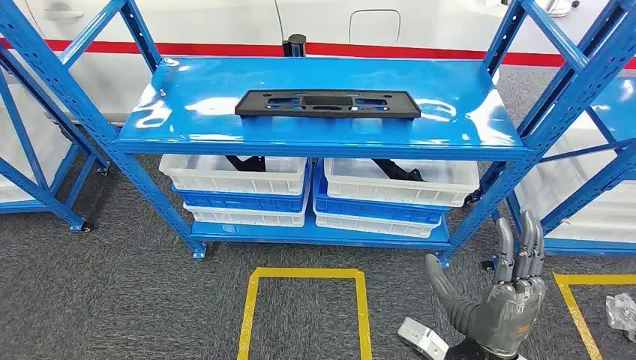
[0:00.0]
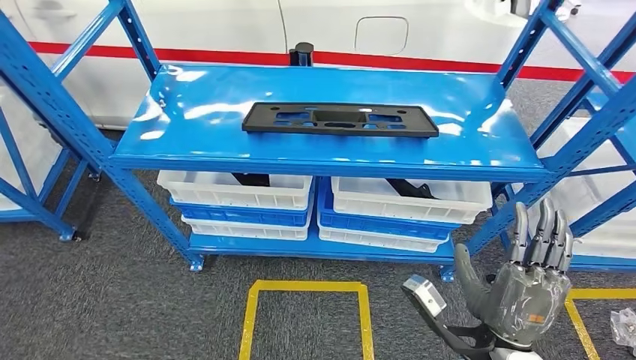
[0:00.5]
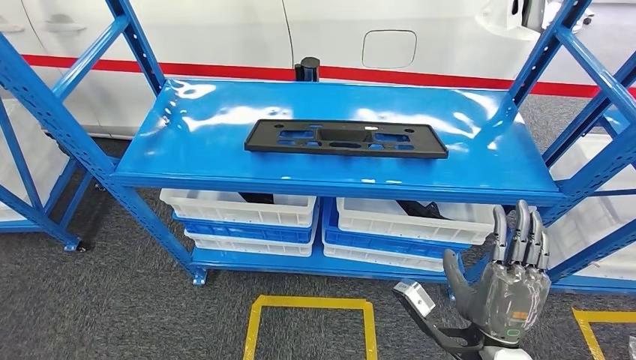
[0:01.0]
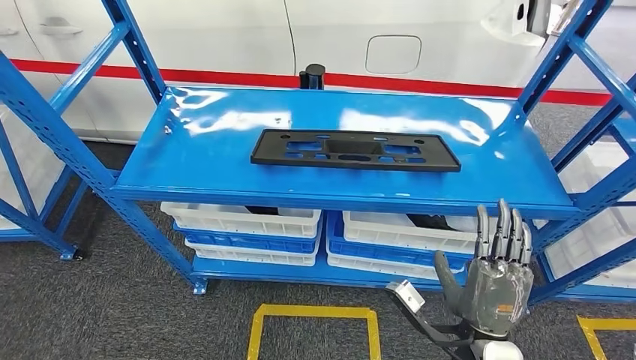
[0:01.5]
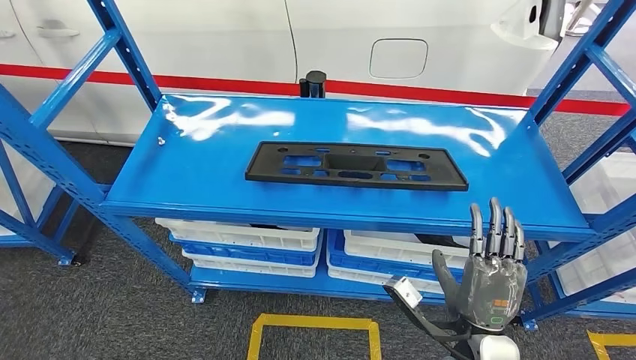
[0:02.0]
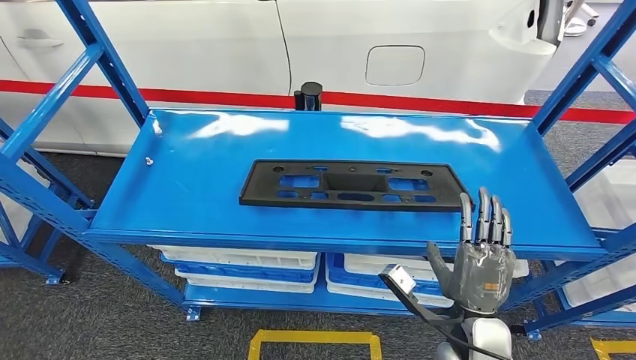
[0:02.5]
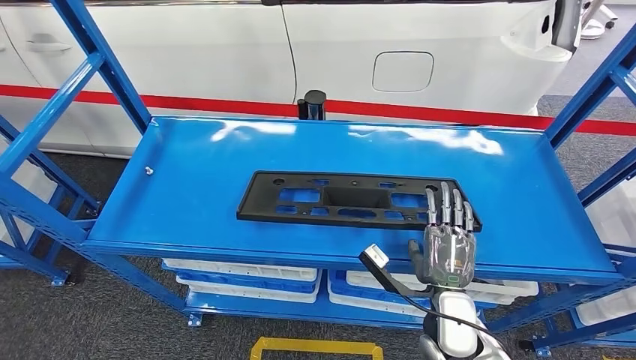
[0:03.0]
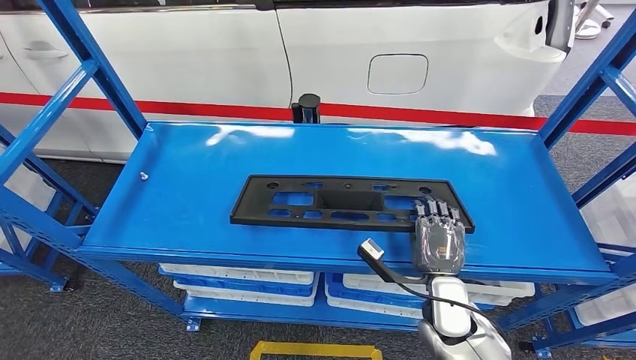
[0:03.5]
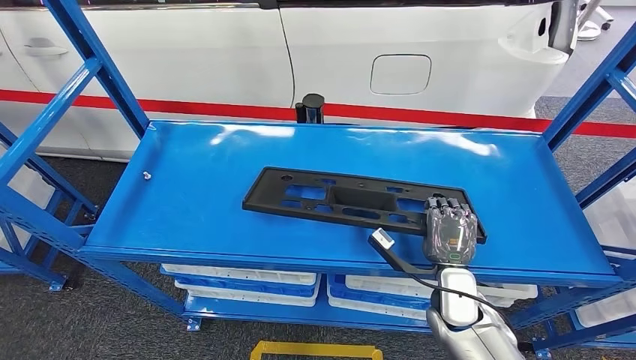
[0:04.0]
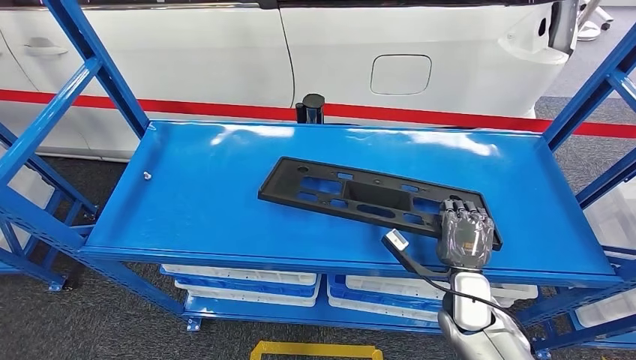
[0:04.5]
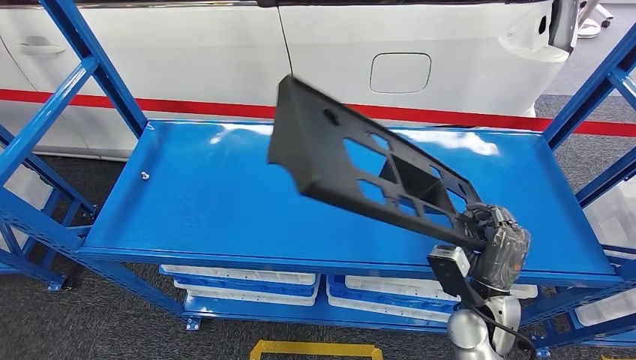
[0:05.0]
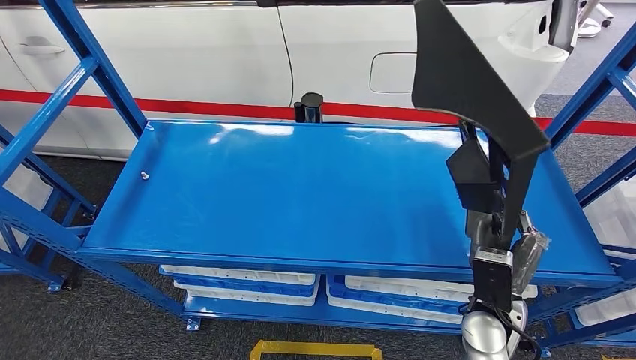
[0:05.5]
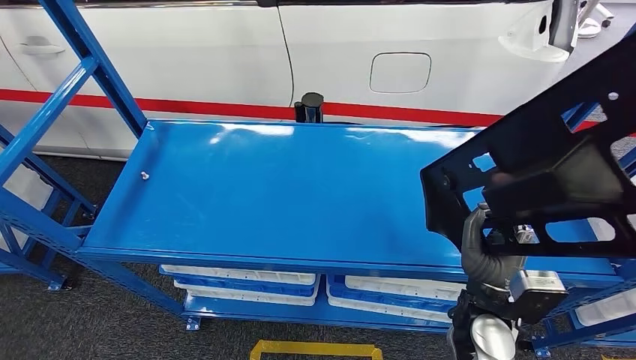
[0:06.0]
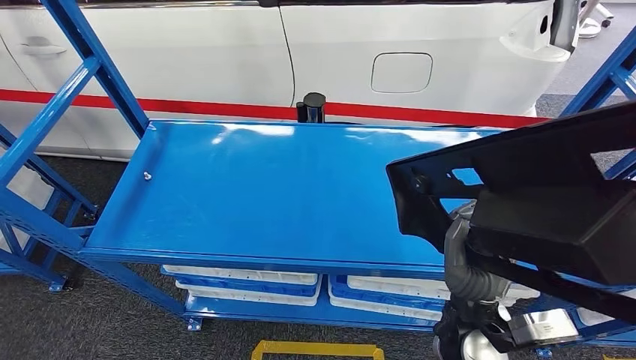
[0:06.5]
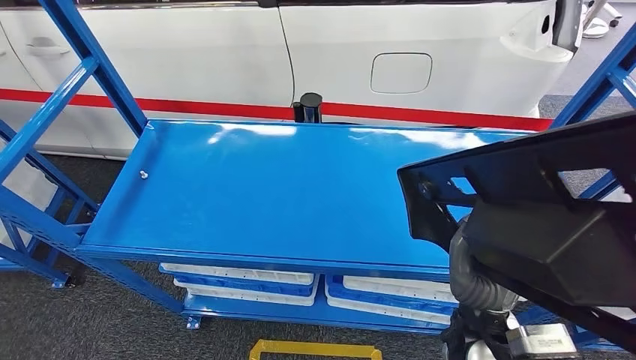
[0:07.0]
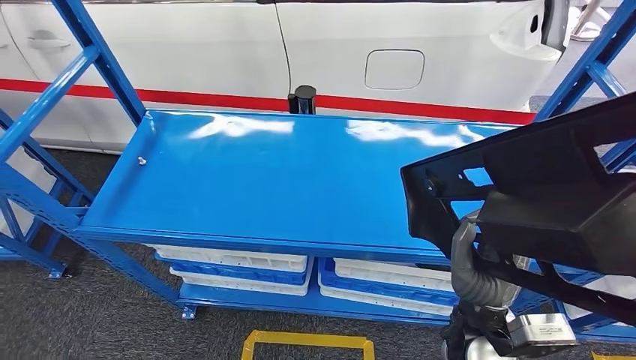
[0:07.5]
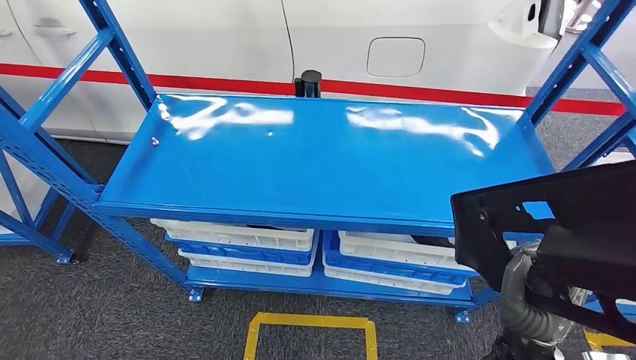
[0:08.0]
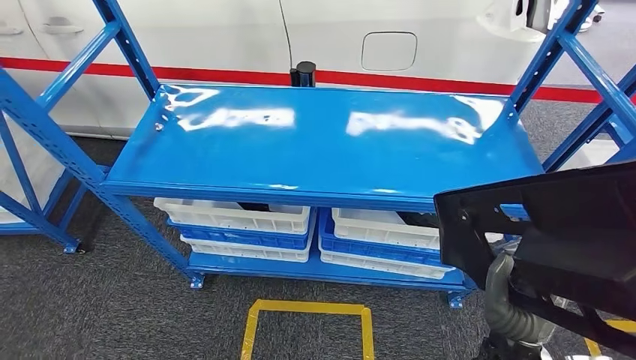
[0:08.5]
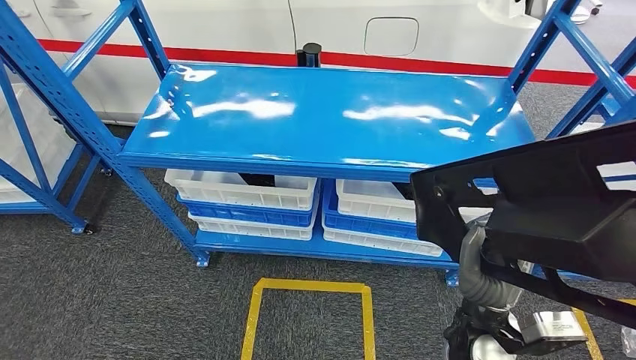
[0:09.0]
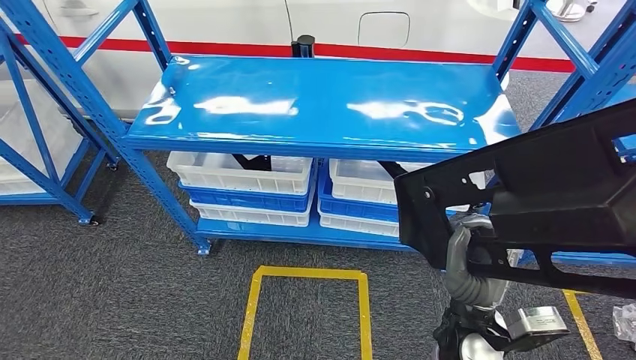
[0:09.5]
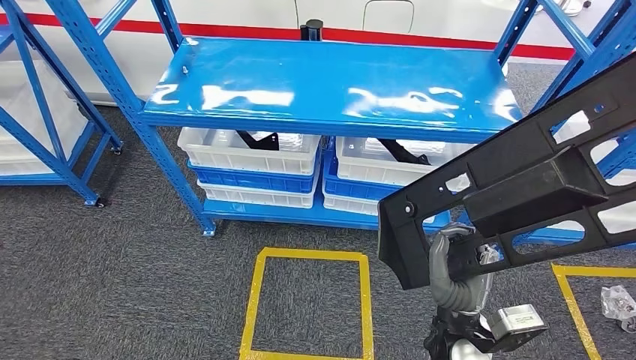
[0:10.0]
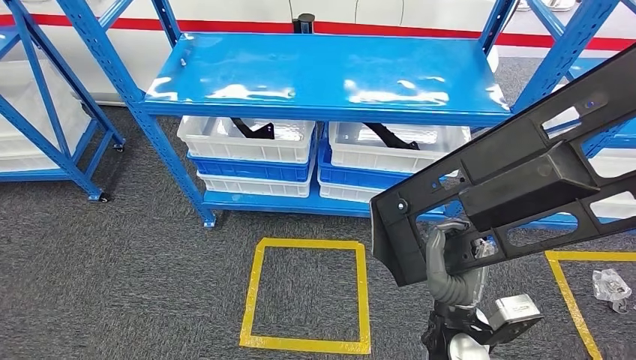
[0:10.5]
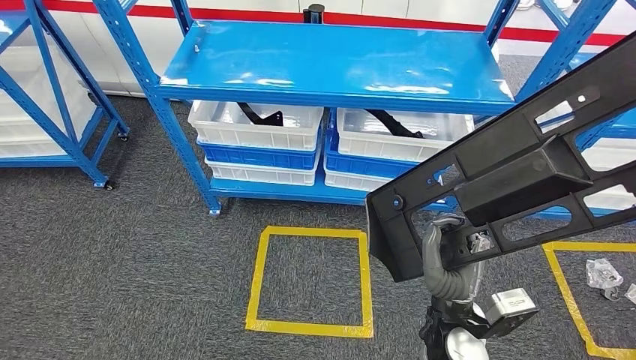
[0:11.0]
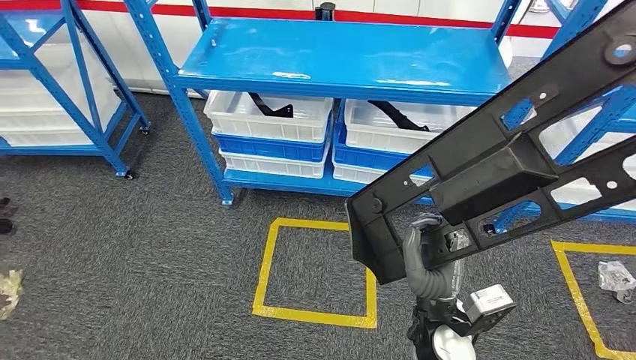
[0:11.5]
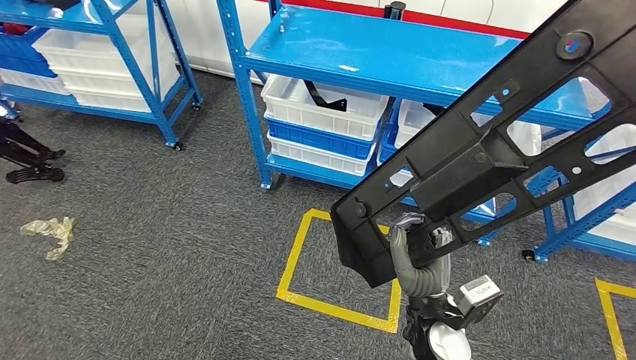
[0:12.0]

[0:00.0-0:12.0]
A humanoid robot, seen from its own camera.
Step, 0:00.0 to 0:09.0: Pick up the large material from the shelf.

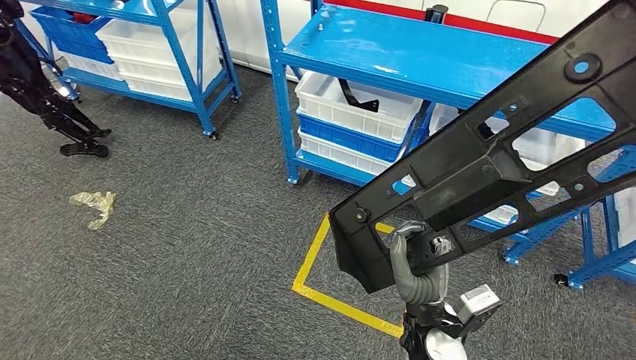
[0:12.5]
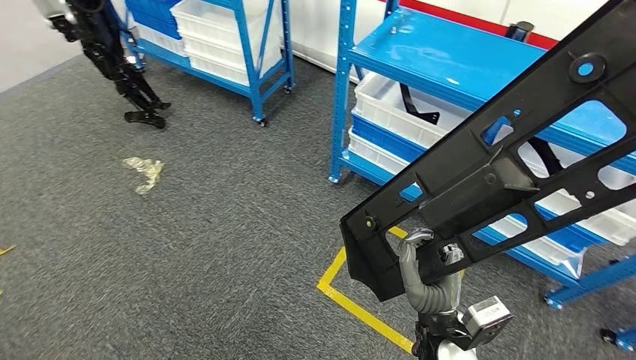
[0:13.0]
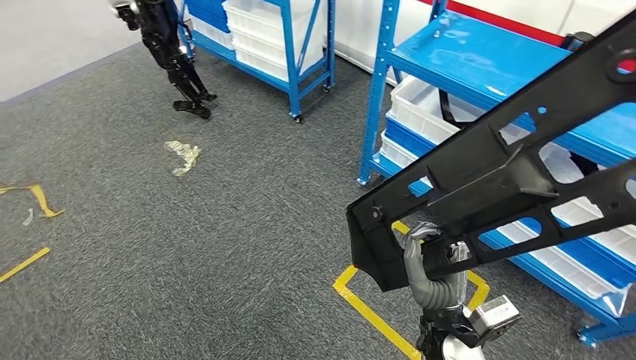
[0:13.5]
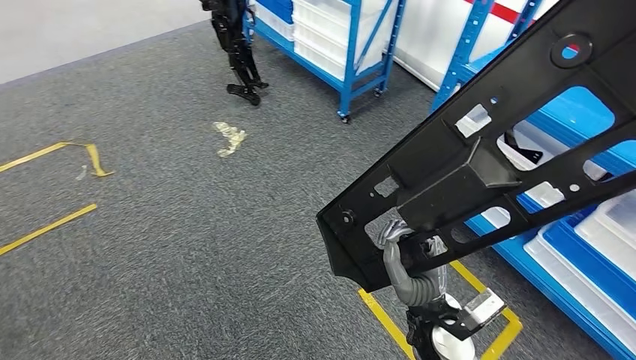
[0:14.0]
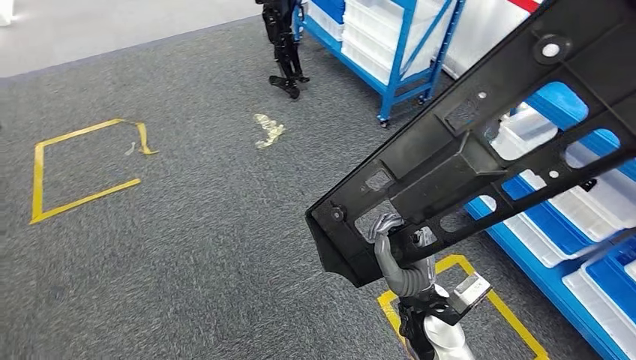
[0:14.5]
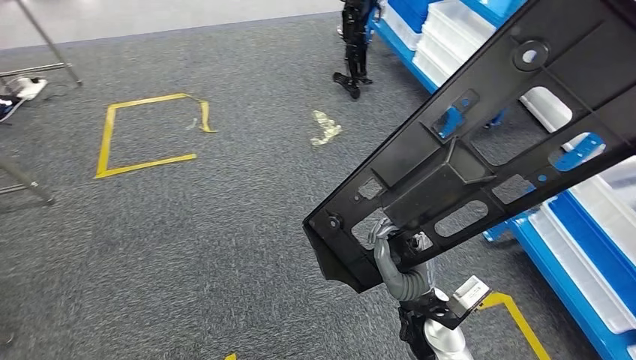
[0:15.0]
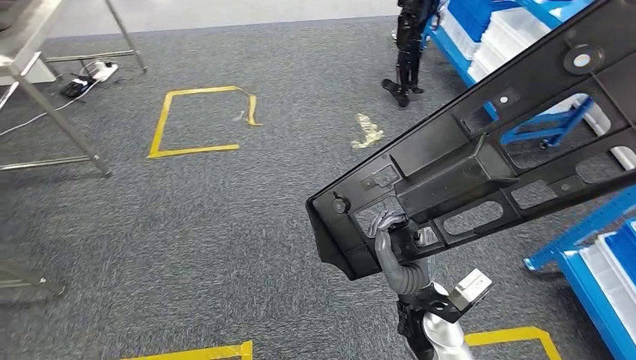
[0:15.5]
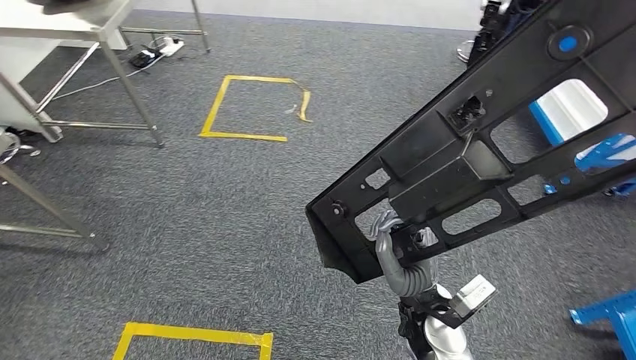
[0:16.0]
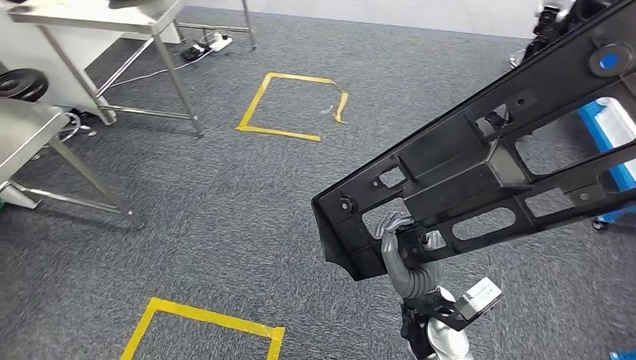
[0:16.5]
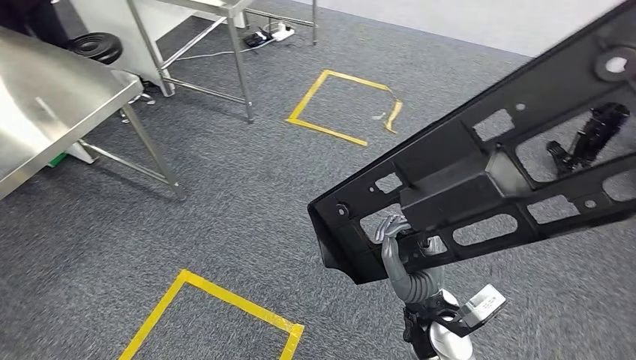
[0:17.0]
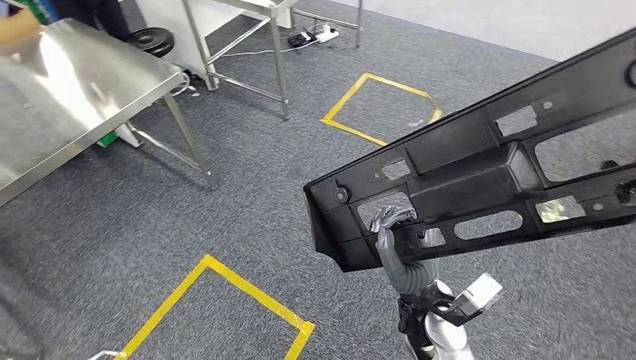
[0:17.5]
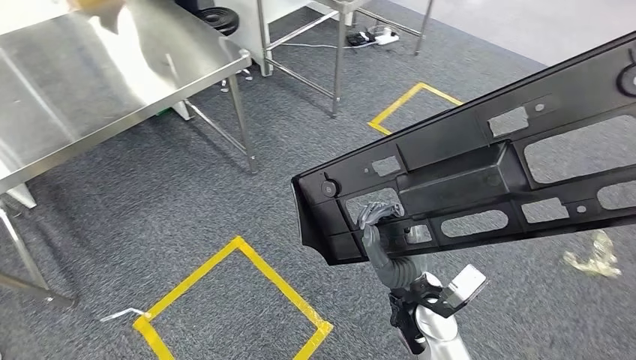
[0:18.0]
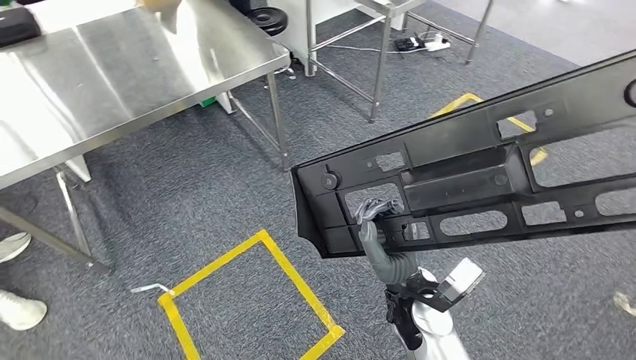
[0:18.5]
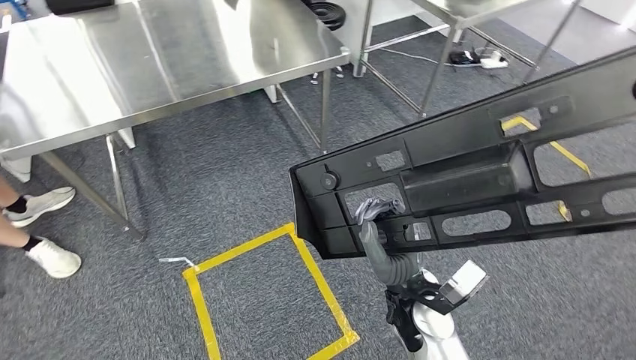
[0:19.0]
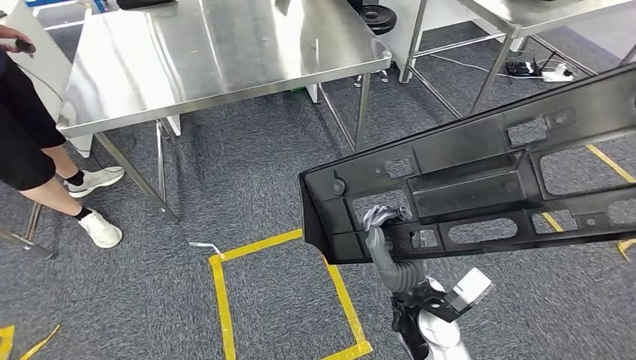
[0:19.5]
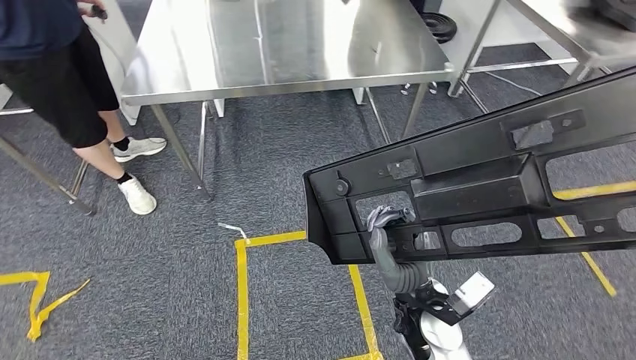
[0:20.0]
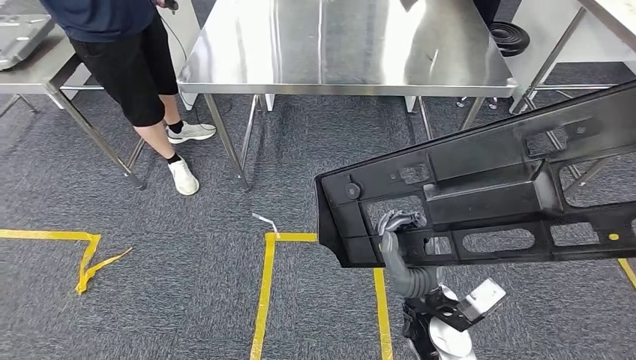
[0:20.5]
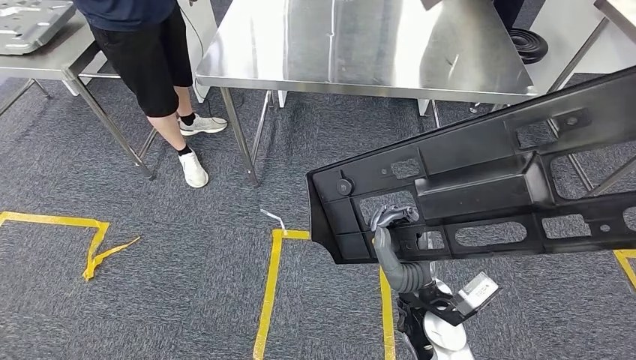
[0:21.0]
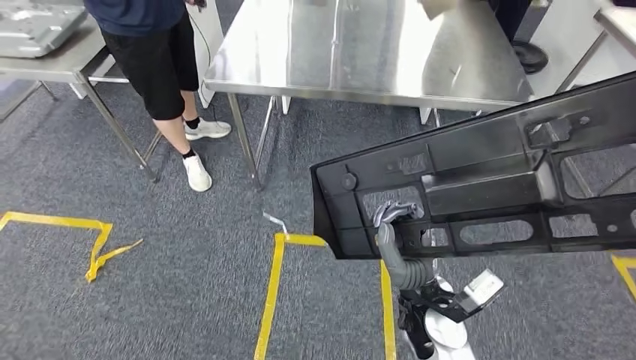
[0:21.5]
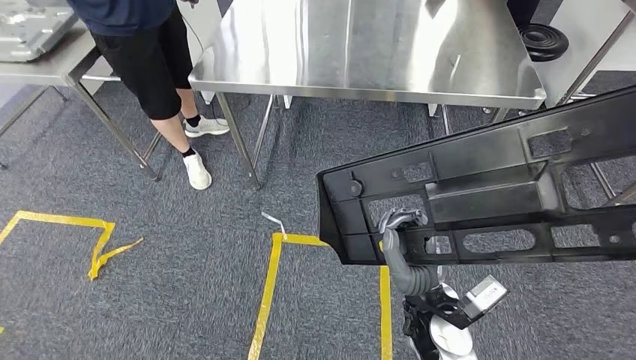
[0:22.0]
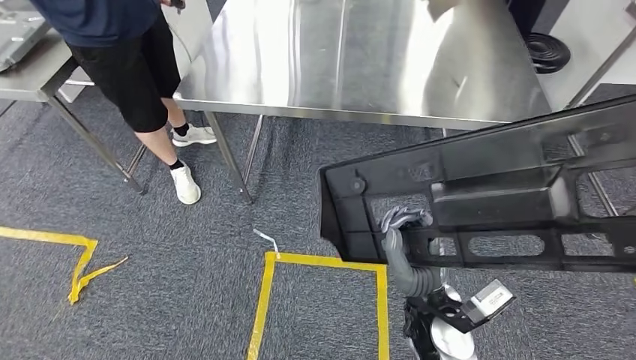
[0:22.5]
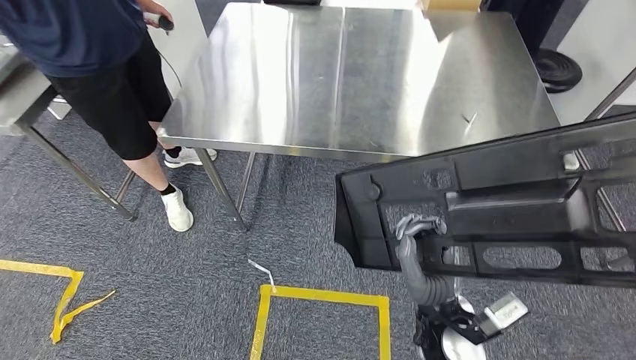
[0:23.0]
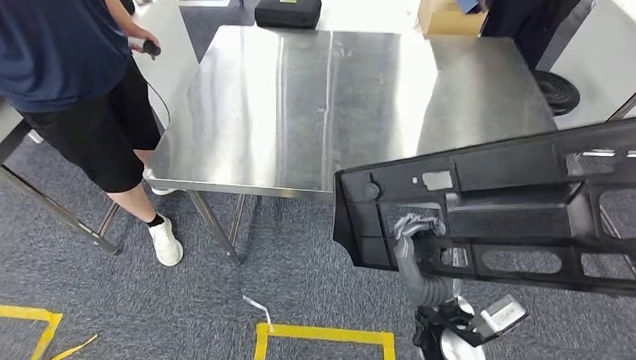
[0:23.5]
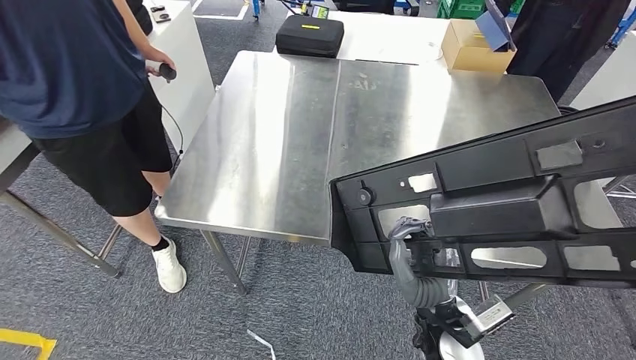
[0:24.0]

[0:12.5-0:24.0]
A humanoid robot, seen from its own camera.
Step, 0:12.5 to 0:22.5: Move the large material to the front of the workbench.
